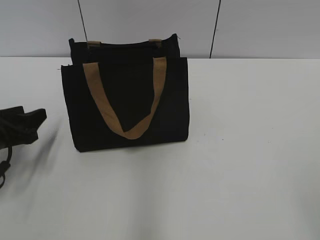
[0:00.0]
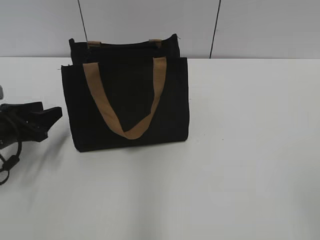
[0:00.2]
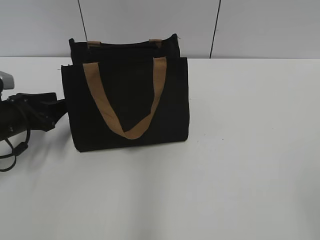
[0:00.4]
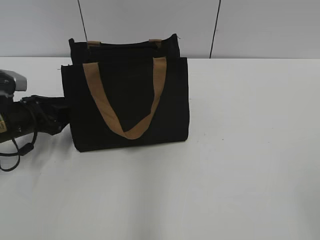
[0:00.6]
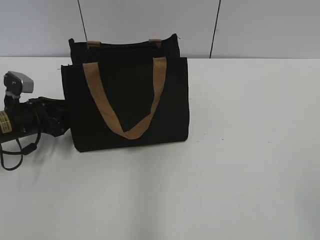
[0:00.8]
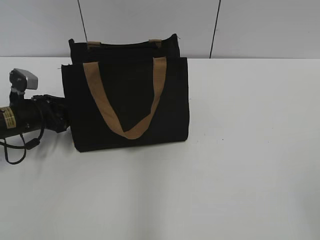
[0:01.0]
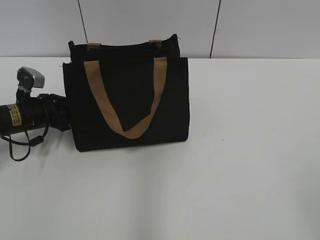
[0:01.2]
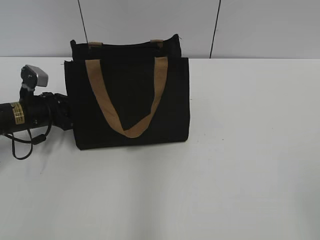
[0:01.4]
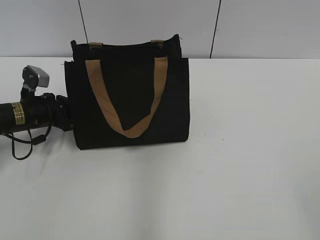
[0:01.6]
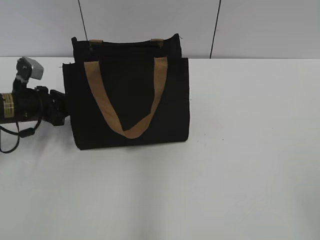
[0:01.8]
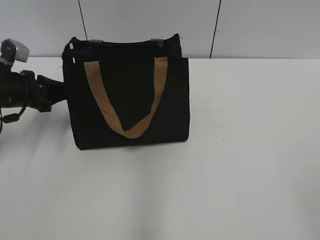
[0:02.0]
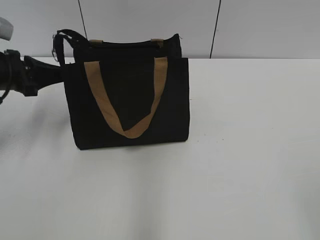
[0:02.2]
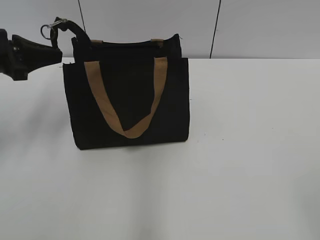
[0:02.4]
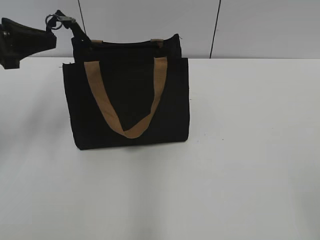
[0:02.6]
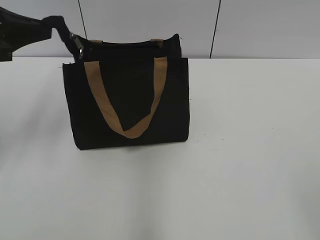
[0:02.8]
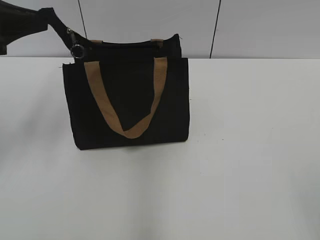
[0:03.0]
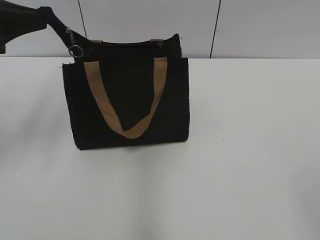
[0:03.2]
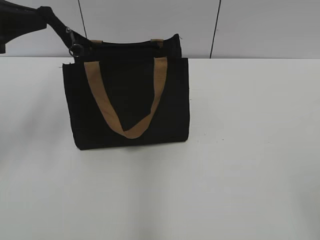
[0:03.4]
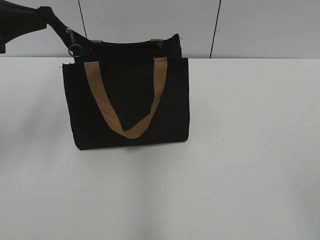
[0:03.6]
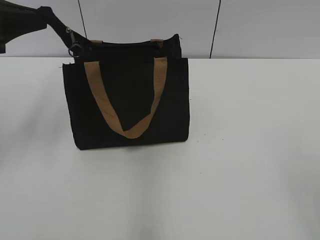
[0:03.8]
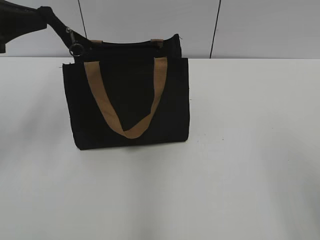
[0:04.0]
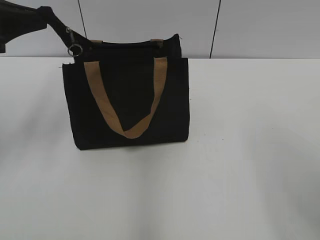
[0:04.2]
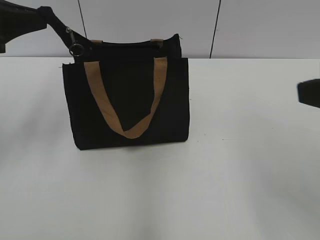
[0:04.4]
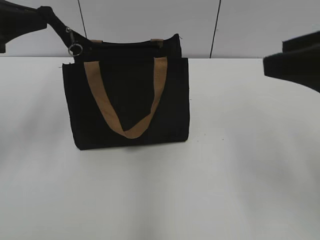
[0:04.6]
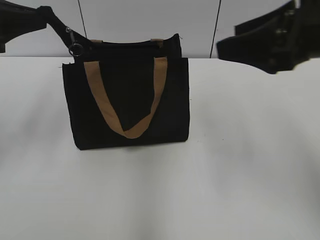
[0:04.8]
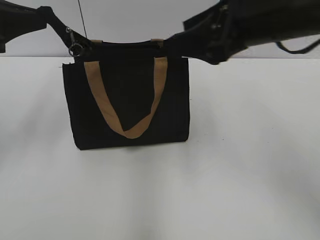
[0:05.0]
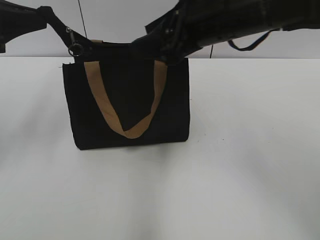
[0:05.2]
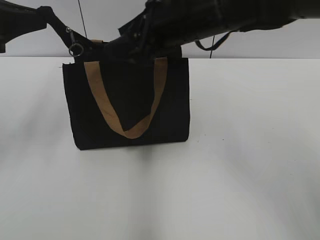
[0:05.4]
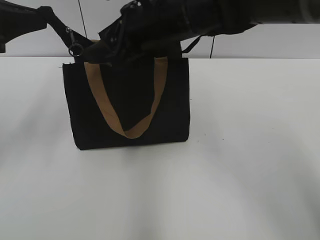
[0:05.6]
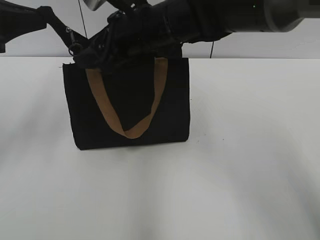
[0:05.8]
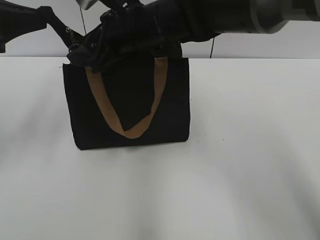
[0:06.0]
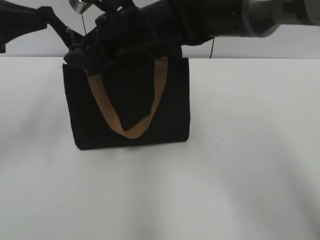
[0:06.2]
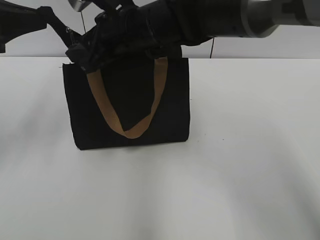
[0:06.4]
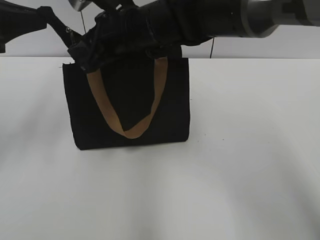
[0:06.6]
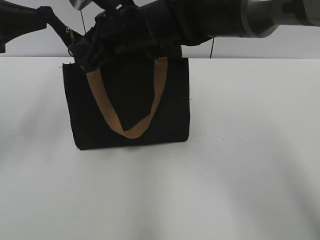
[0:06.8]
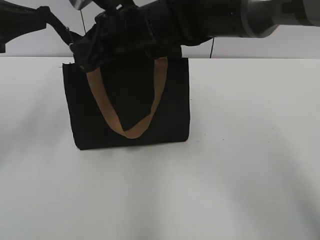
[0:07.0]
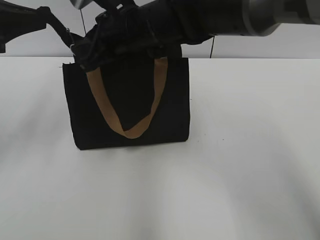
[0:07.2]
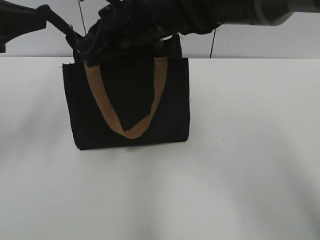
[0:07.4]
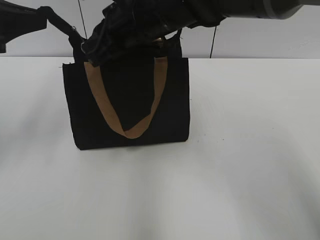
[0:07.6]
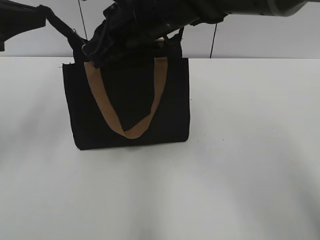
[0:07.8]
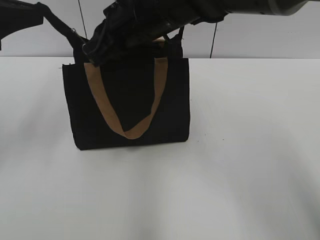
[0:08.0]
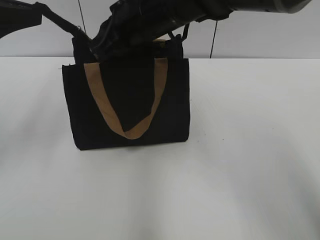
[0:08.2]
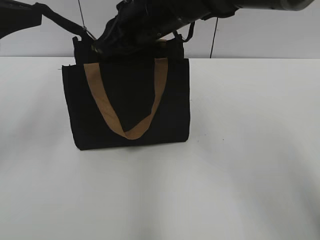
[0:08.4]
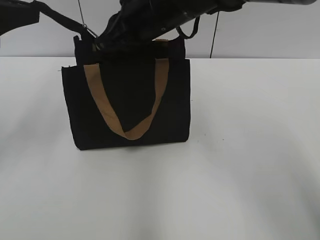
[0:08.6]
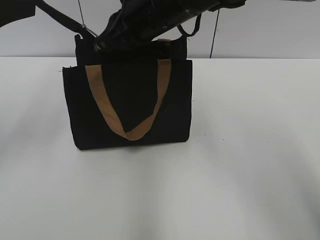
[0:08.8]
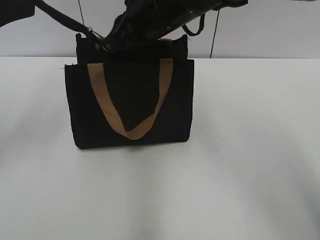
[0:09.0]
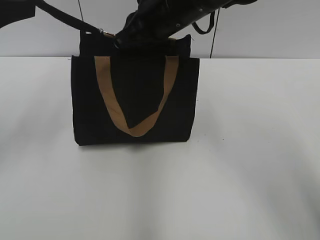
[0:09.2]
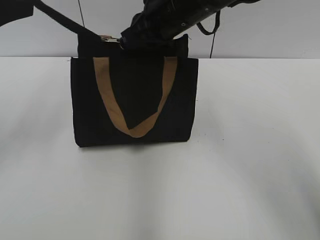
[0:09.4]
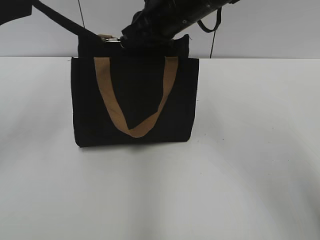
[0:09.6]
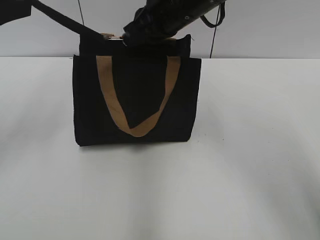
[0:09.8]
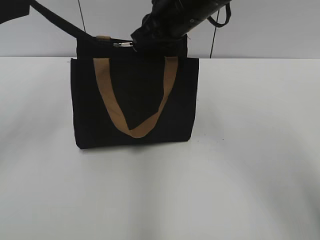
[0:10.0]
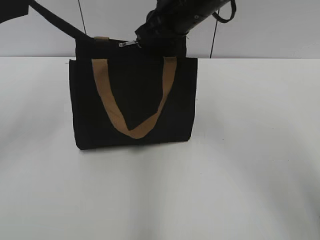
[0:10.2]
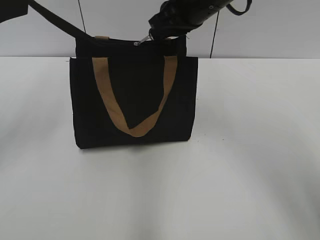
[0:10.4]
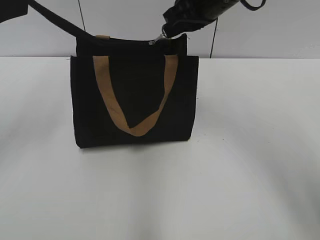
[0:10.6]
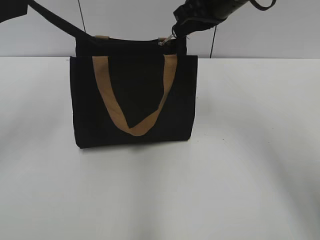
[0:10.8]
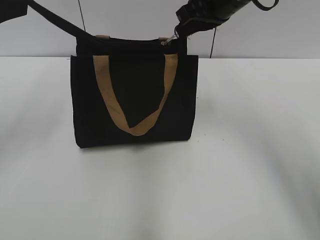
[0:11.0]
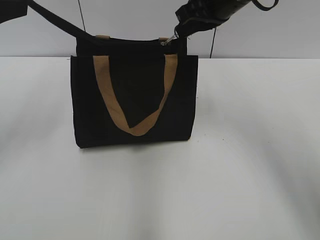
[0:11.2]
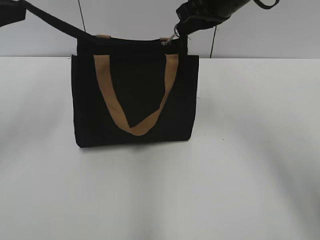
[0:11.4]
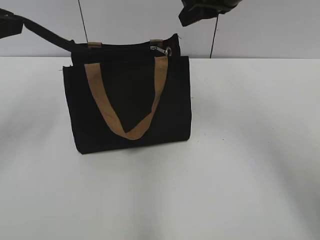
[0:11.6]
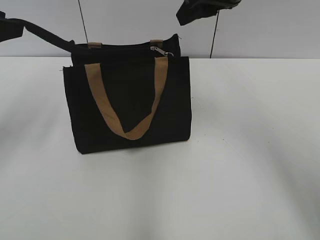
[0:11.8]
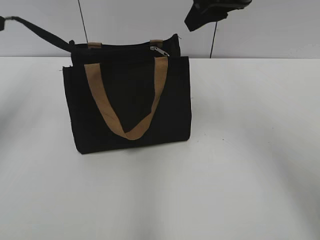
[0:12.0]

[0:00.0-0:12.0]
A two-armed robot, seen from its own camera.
Step, 0:00.0 to 0:11.4: Zip up the bag with your right hand.
0:00.0 to 0:01.6: The left gripper heads forward and downward, covering approximately 15 cm, and closes up.
0:01.6 to 0:03.0: The left gripper is displaced upward by roughly 20 cm.
0:03.0 to 0:04.4: The right gripper goes approximately 15 cm forward and upward.
0:04.4 to 0:06.0: The right gripper moves to the left and forward, about 35 cm.
0:06.0 to 0:07.6: The right gripper closes its fingers.
0:07.6 to 0:09.0: The grippers make only small movements.
0:09.0 to 0:10.4: The right gripper goes about 5 cm to the right.
0:10.4 to 0:12.0: The left gripper opens. Meanwhile the right gripper heads to the right, covering about 5 cm, and opens up.

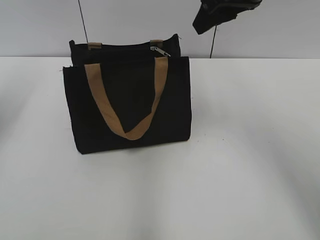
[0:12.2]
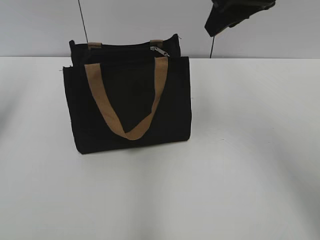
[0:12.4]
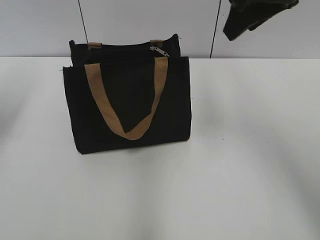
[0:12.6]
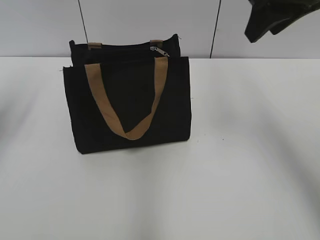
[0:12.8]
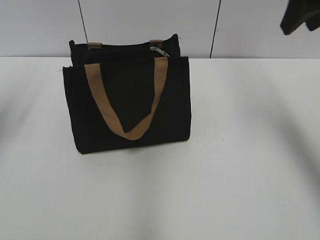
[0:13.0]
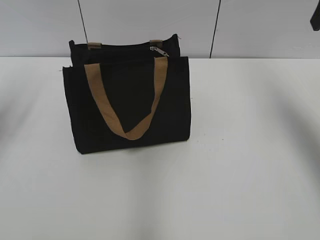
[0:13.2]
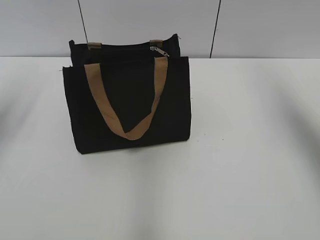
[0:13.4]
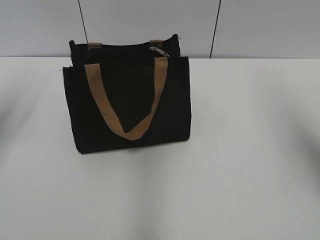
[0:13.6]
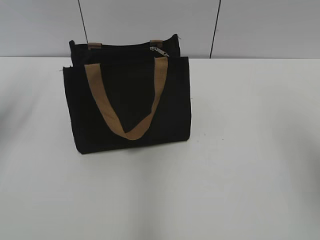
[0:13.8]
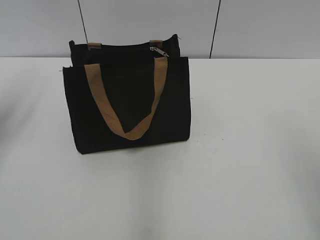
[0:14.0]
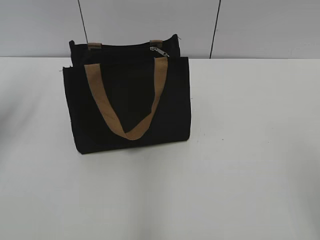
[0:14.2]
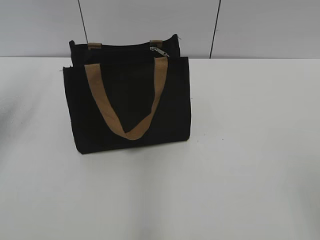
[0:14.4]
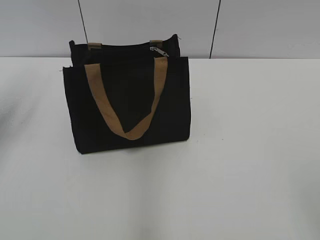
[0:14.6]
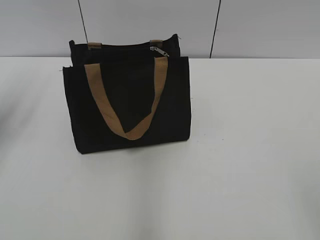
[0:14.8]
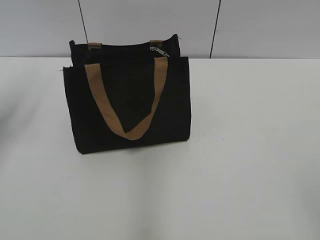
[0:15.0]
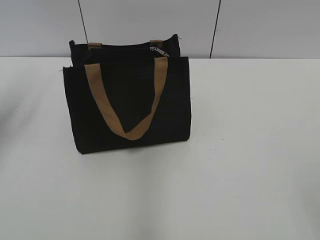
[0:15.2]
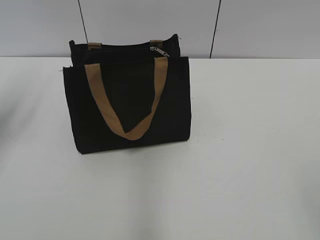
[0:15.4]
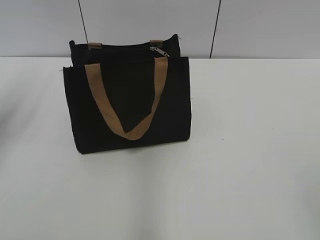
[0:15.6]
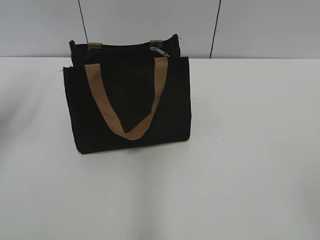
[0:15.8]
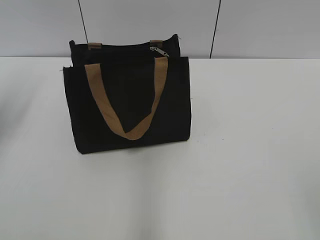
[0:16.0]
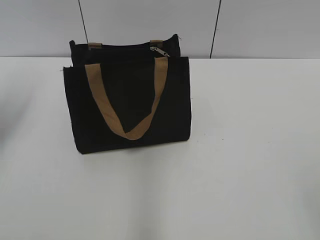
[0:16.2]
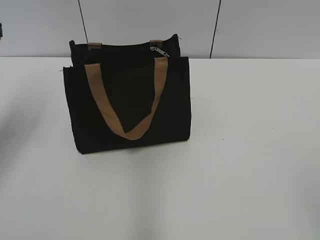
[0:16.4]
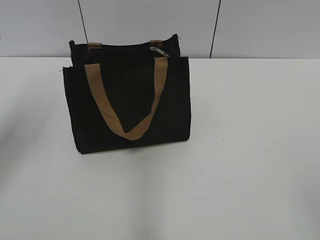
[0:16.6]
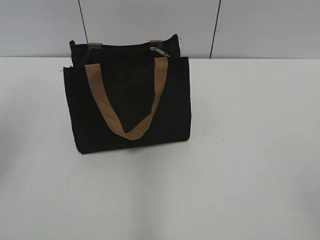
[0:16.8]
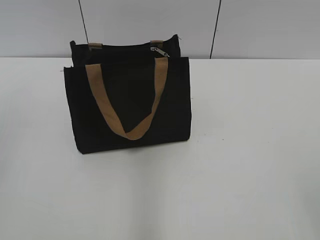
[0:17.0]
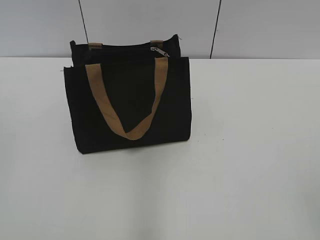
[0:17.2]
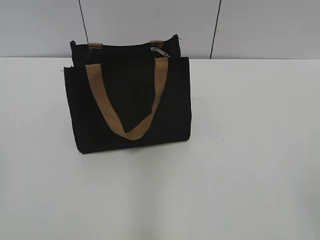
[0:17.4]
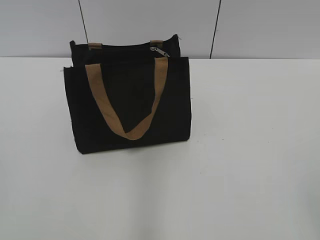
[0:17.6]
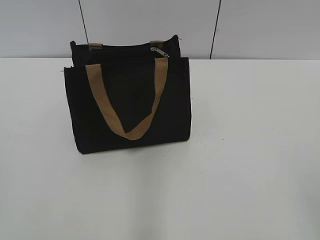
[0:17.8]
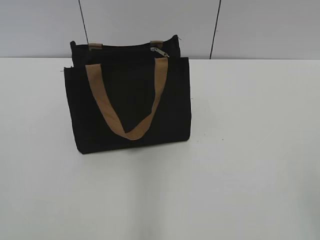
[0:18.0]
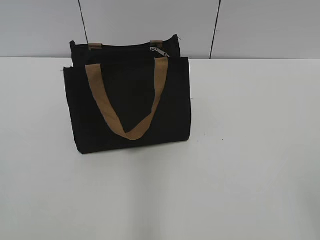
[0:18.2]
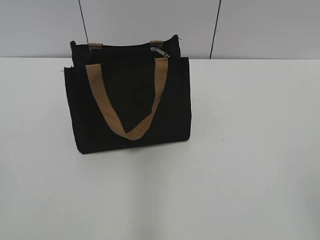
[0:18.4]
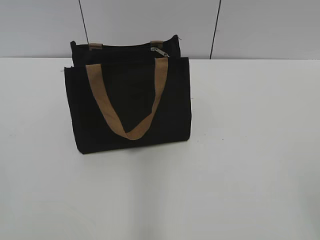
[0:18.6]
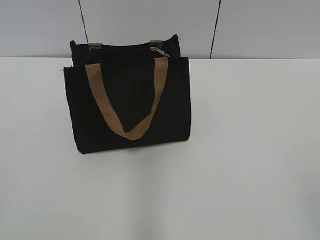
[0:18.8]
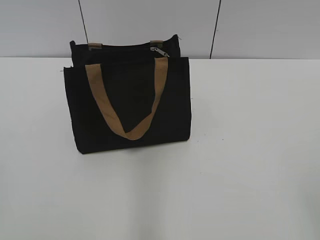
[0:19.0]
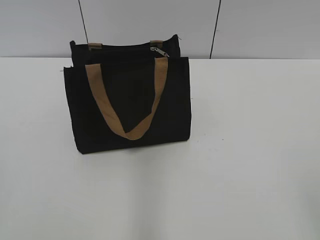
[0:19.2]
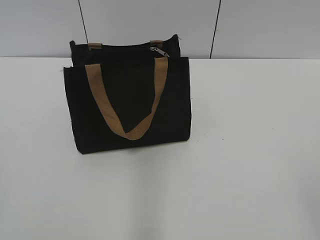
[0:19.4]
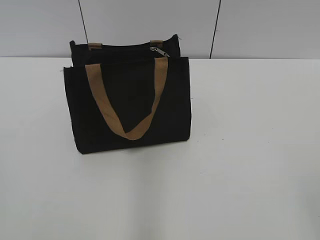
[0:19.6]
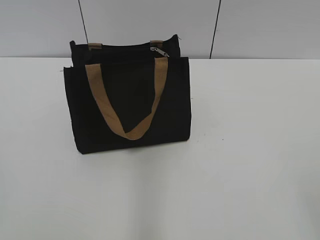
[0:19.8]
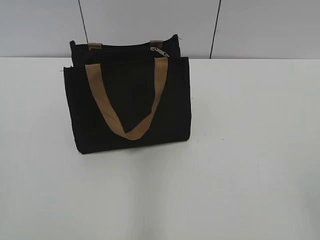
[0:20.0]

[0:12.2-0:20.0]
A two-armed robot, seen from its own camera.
0:12.2 to 0:13.8: The right gripper is displaced backward and to the right by roughly 20 cm.
0:16.8 to 0:18.4: The left gripper heads backward, covering about 25 cm.
0:18.4 to 0:20.0: Both grippers stay put.

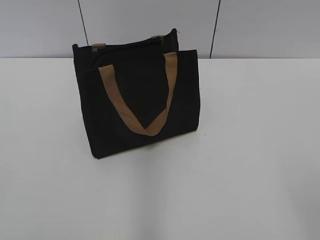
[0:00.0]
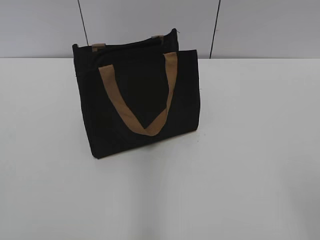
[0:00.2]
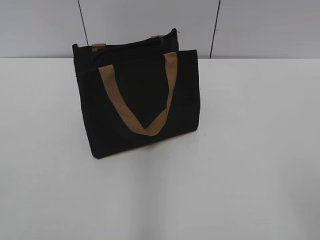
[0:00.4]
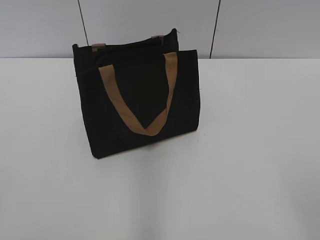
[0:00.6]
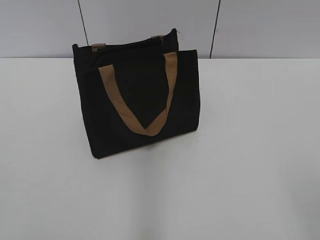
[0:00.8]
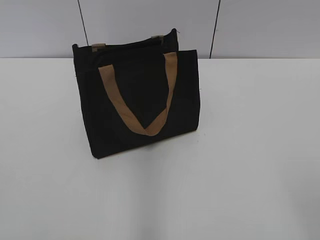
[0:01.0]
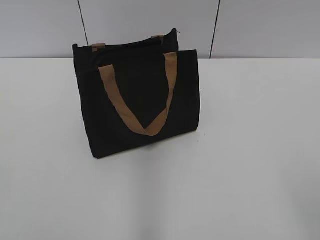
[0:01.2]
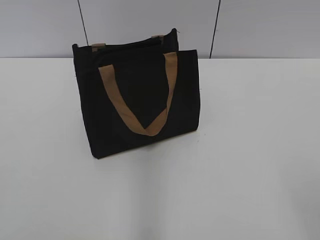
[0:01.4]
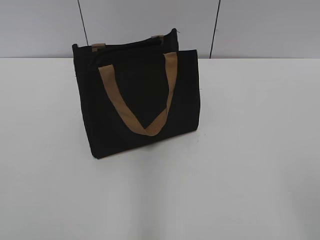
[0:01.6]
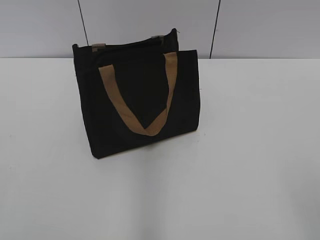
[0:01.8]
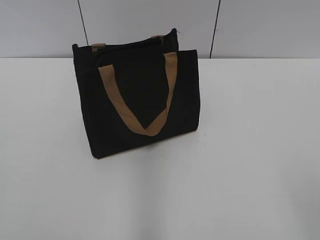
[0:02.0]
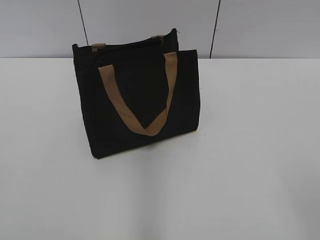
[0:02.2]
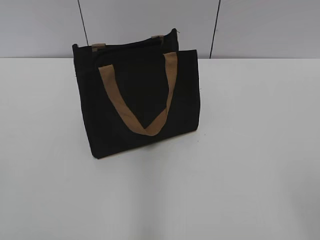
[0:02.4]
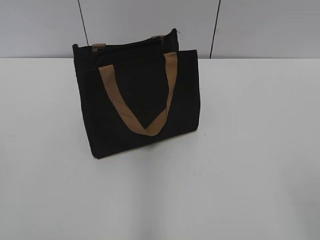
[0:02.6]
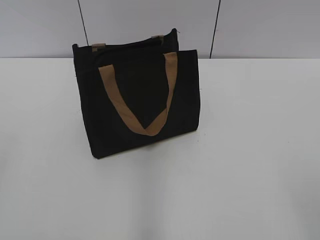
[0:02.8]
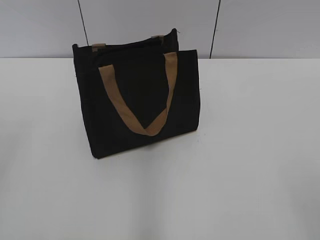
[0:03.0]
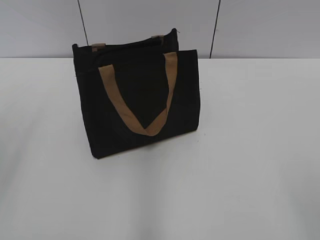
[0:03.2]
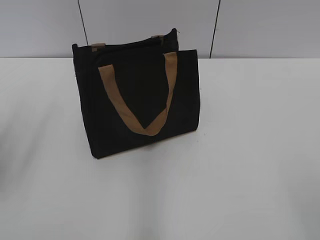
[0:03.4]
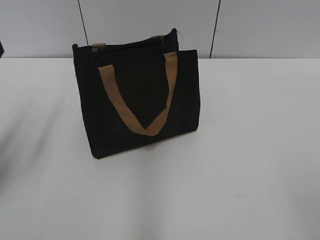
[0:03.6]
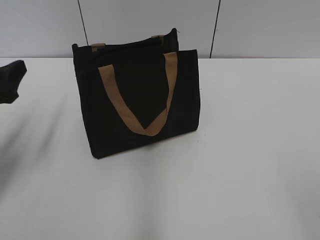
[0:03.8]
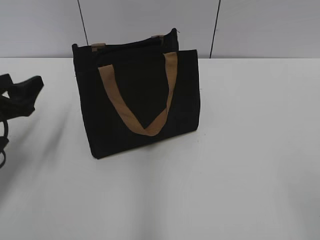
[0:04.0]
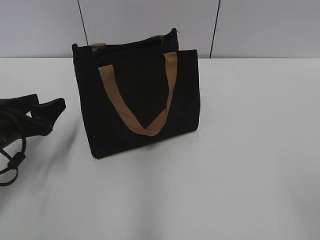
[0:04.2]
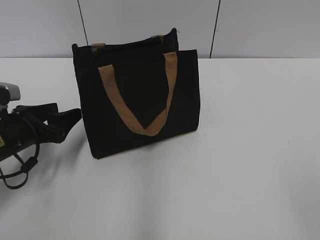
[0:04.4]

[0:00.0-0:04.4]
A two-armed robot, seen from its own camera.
0:03.0 to 0:04.4: The left gripper goes about 30 cm downward and forward.
